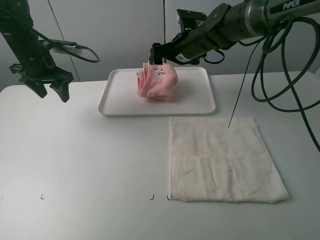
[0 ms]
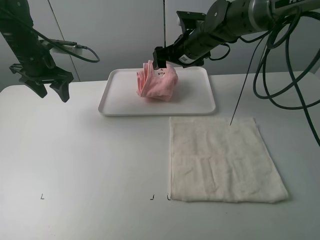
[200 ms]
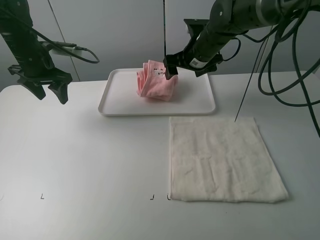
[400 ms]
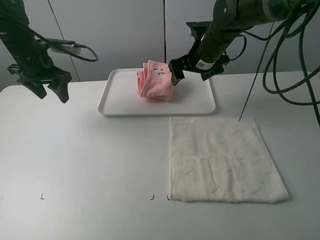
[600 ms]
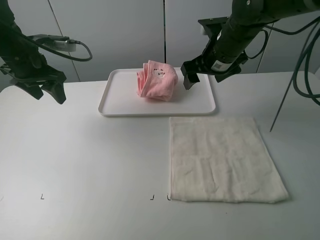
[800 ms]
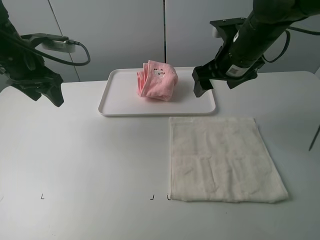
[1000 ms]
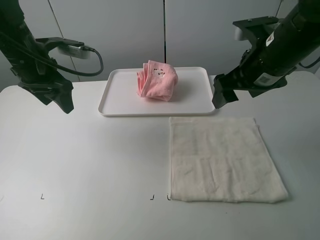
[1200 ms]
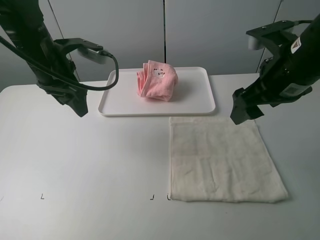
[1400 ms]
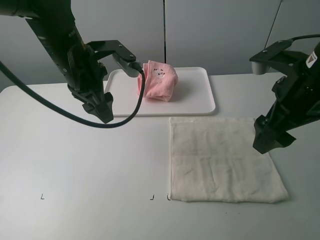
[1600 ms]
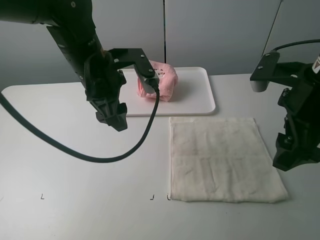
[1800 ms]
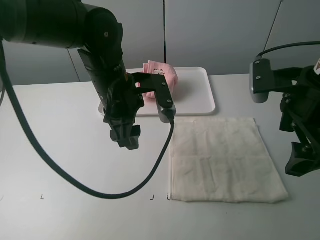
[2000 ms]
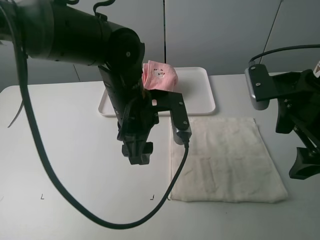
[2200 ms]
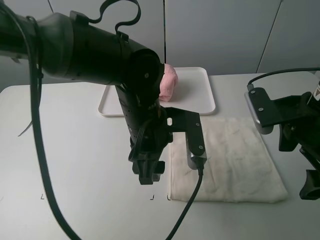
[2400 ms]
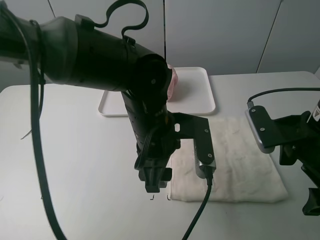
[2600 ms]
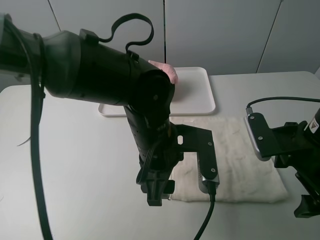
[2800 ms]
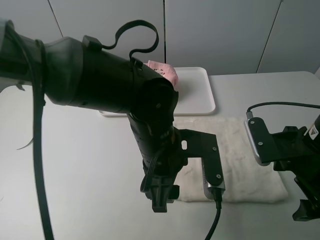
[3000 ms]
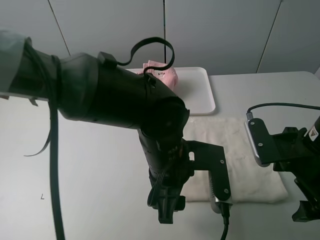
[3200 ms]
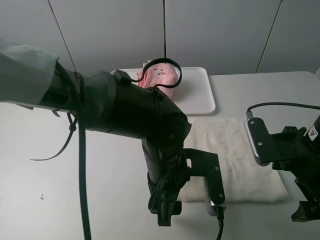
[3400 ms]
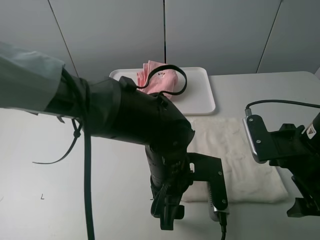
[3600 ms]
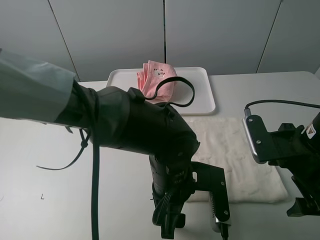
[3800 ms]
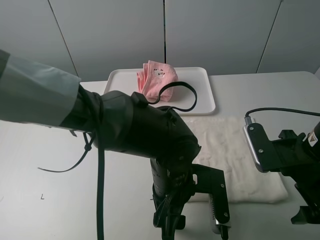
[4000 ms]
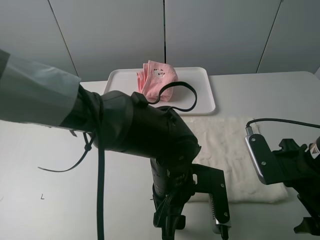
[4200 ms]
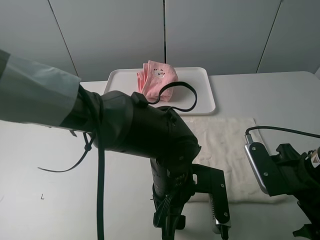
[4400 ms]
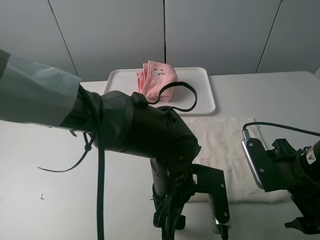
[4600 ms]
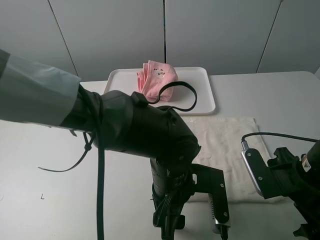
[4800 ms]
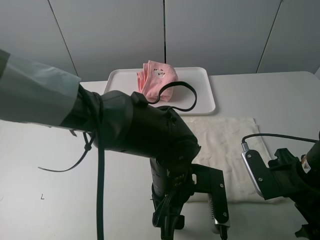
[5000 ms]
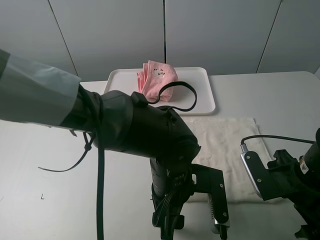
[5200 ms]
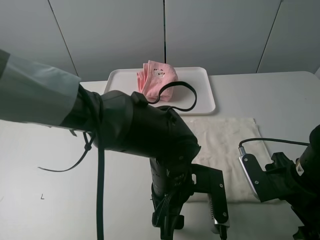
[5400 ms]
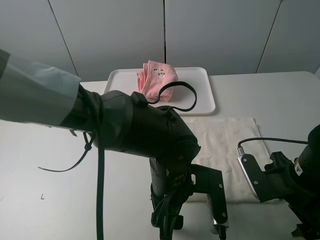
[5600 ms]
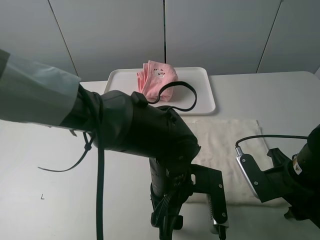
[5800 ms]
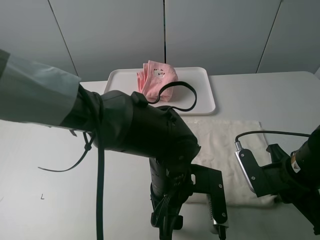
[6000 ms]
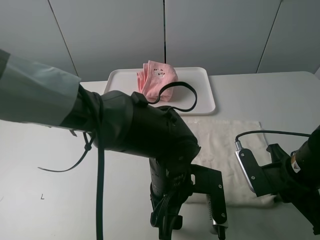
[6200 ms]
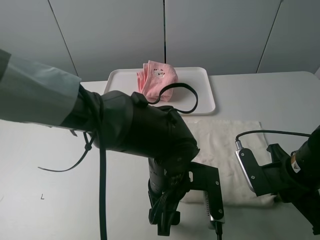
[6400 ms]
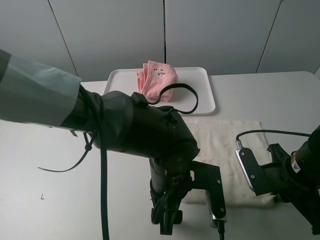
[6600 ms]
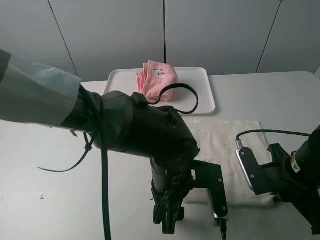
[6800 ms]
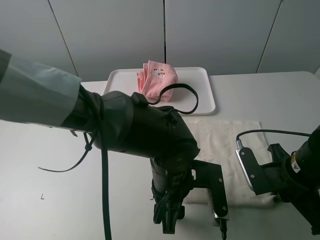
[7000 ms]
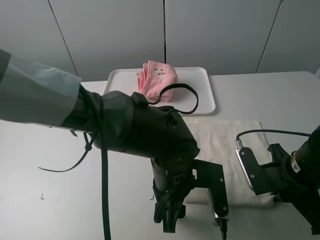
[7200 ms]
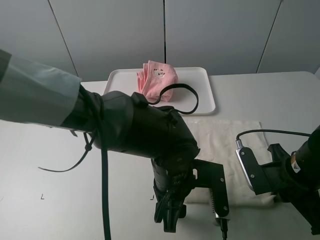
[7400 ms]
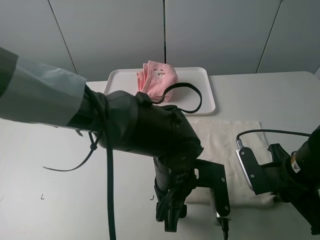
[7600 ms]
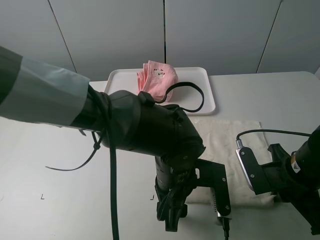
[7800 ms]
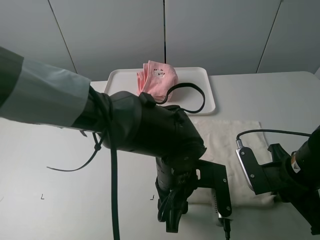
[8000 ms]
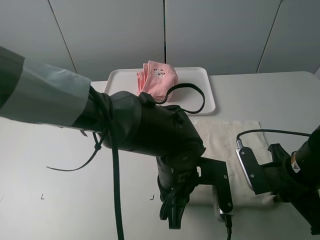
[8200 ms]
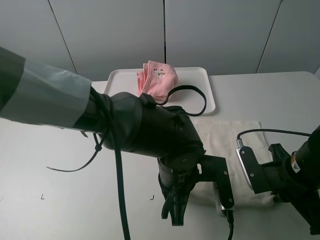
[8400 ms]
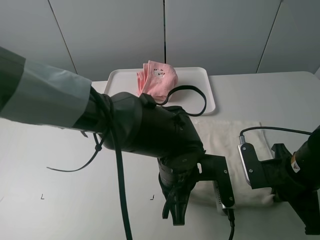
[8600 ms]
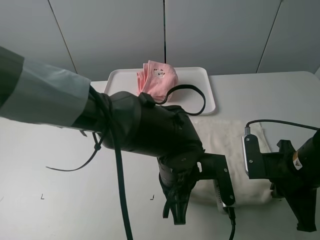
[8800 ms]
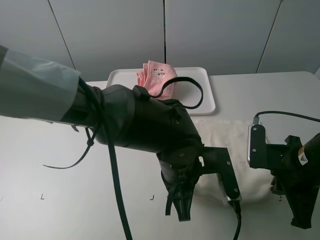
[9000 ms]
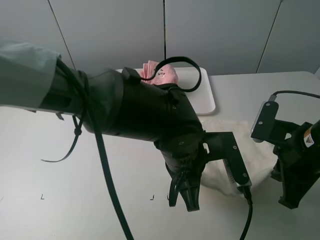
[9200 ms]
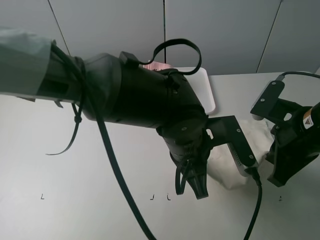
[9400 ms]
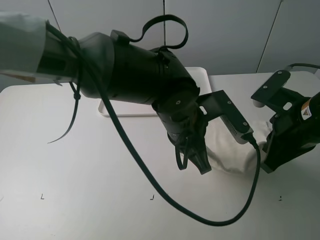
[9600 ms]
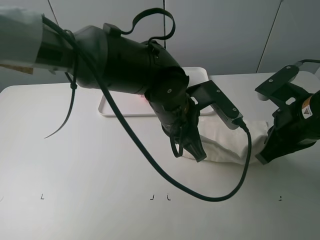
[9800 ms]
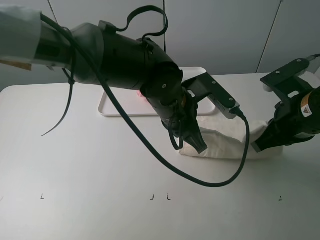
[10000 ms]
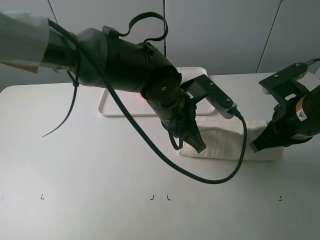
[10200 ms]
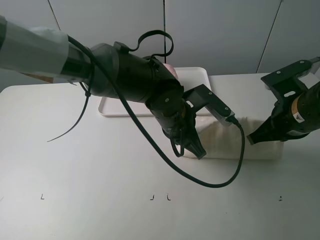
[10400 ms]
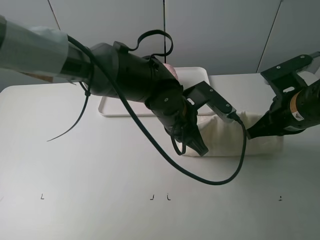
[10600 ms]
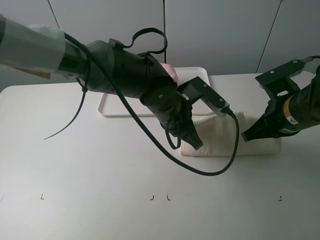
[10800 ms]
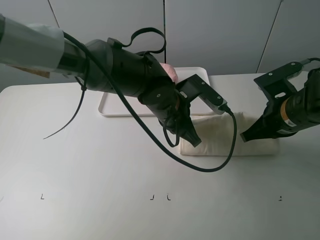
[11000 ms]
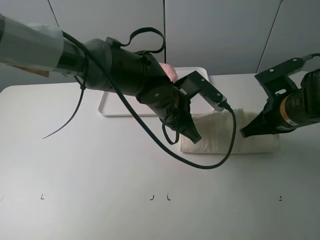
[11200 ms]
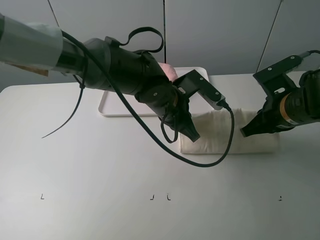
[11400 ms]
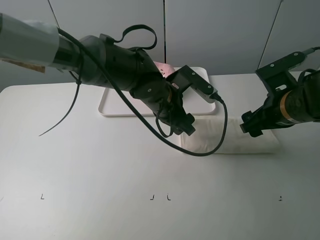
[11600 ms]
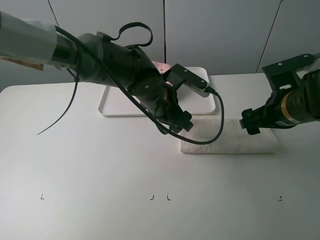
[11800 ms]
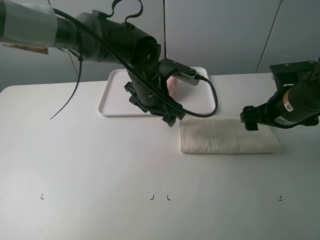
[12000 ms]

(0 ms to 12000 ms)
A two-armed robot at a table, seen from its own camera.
Task of the whole recording: fold one of the towels by two grippers and place it on the tray,then fold another towel by two grippers and place it on the folded towel.
Step, 0 ms - 8400 ms: Grasp the white towel with the left gripper.
Step, 8800 ms - 11800 ms: Fold the white towel upwards with the left gripper.
0 ms - 1600 ms: The left gripper goes roughly 20 cm to the right and backward. The right gripper heads backward and to the right, covering about 25 cm.
1600 ms - 3000 ms: The right gripper is displaced downward by roughly 10 cm. The left gripper shifts approximately 20 cm to the right, backward and downward.
3000 ms - 4400 ms: The left gripper shifts approximately 5 cm downward.
4400 ms - 6000 ms: The right gripper closes its fingers.
6000 ms - 7600 ms: The grippers stay close to where they were, moving slightly.
7600 ms - 9000 ms: The left gripper closes up.
9000 ms - 10400 ms: The two grippers go about 5 cm forward.
10400 ms - 12000 ms: The right gripper opens up. Meanwhile the left gripper shifts roughly 10 cm forward, and opens up.

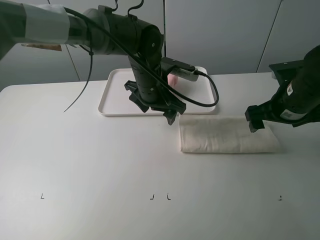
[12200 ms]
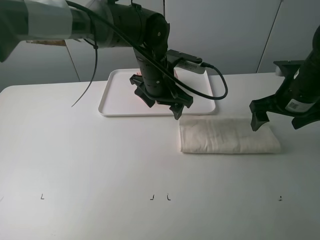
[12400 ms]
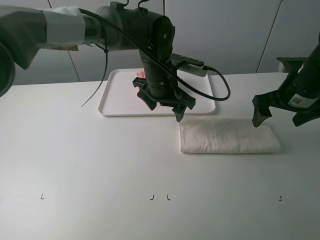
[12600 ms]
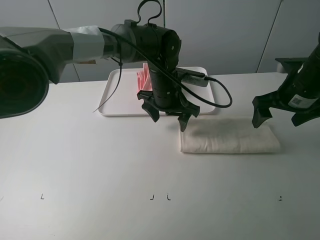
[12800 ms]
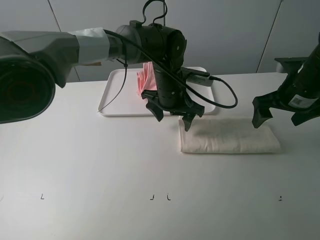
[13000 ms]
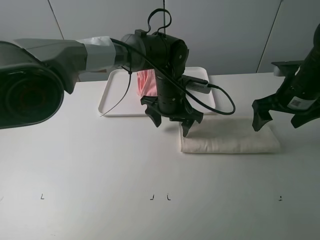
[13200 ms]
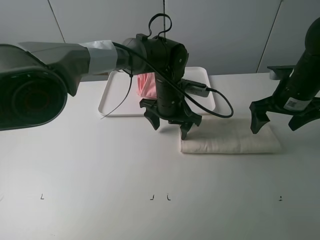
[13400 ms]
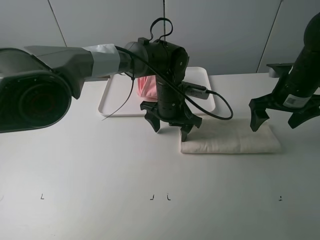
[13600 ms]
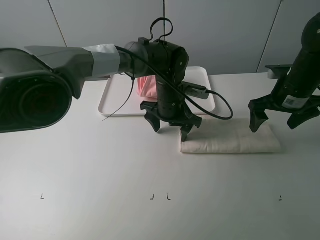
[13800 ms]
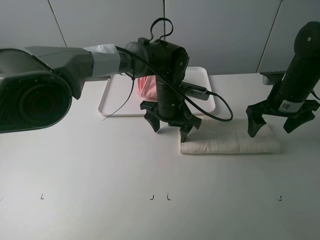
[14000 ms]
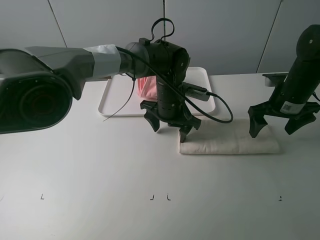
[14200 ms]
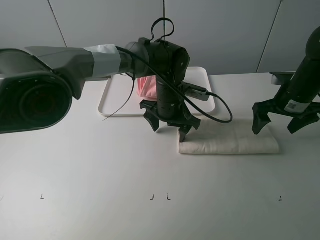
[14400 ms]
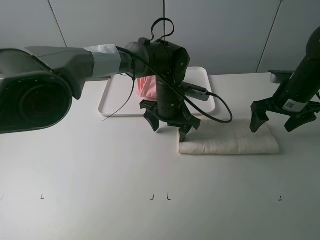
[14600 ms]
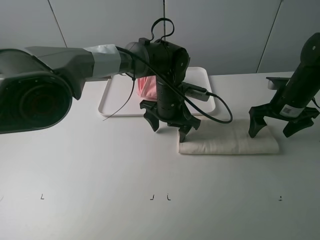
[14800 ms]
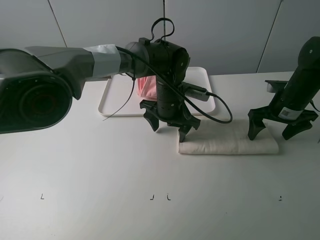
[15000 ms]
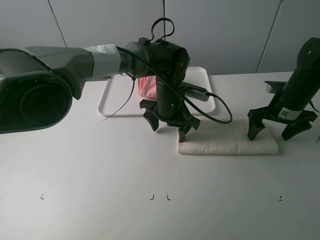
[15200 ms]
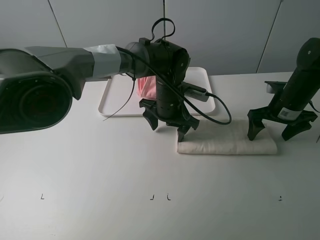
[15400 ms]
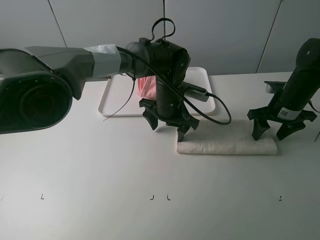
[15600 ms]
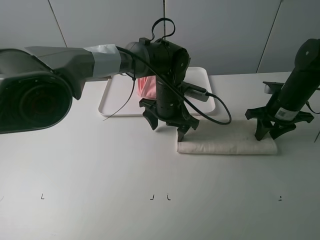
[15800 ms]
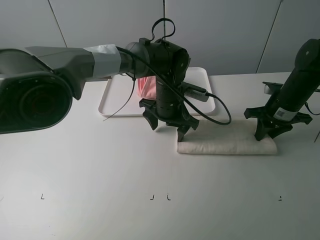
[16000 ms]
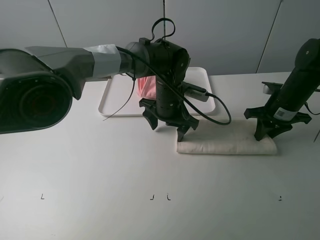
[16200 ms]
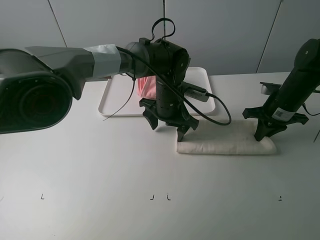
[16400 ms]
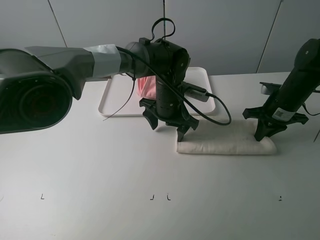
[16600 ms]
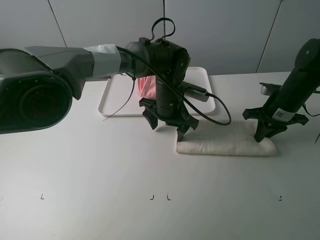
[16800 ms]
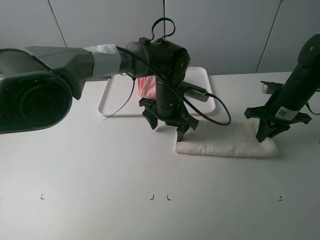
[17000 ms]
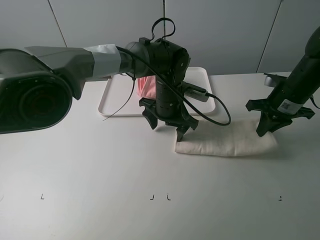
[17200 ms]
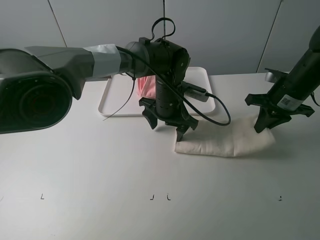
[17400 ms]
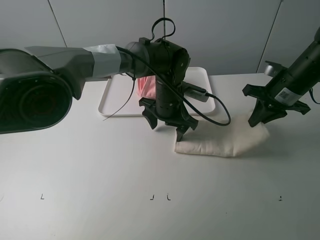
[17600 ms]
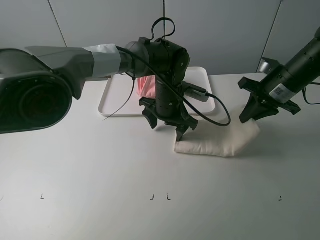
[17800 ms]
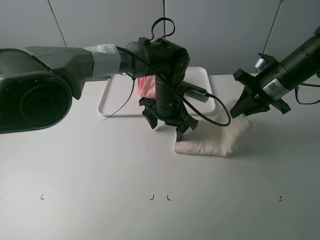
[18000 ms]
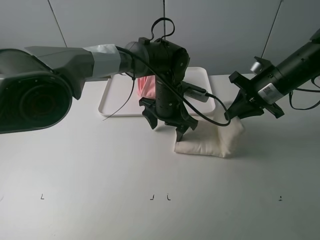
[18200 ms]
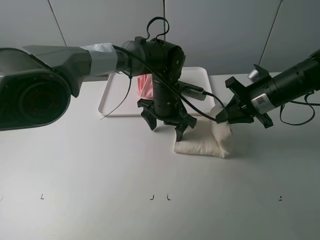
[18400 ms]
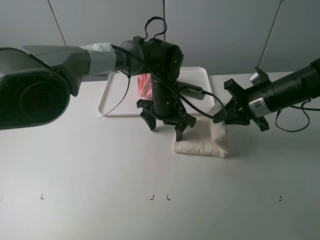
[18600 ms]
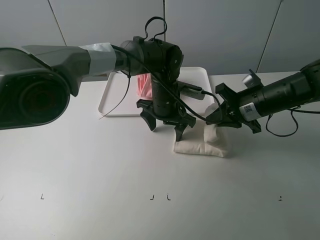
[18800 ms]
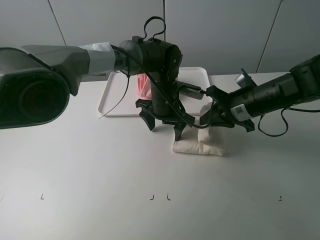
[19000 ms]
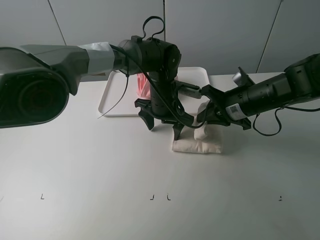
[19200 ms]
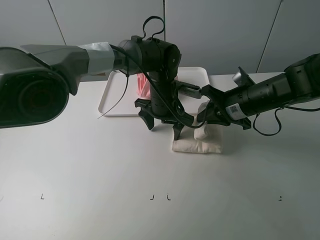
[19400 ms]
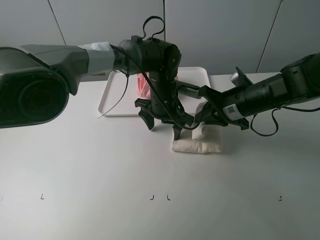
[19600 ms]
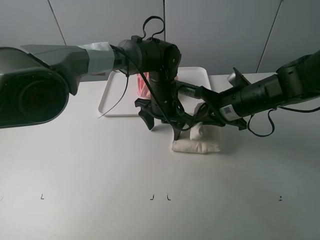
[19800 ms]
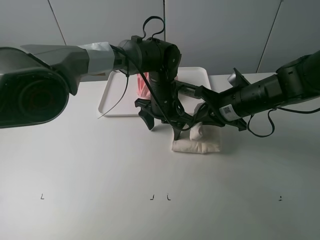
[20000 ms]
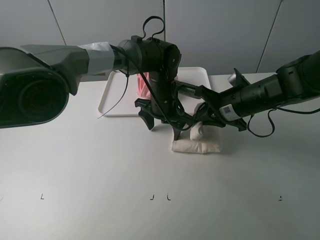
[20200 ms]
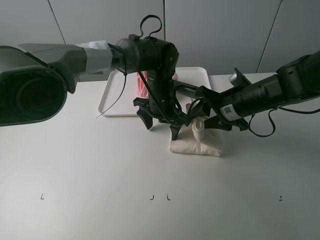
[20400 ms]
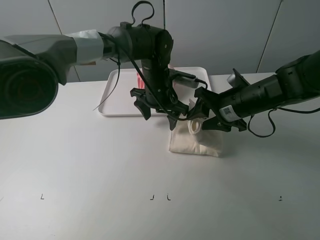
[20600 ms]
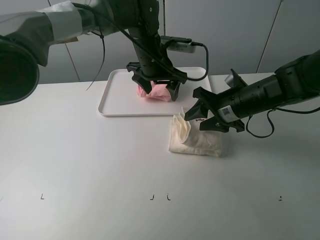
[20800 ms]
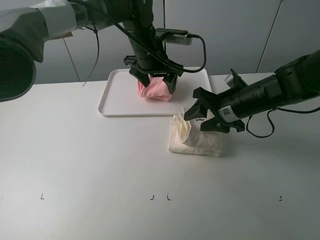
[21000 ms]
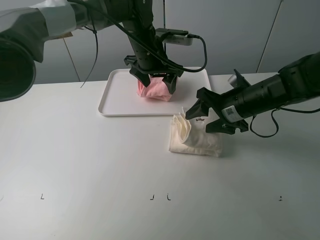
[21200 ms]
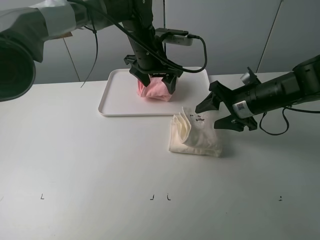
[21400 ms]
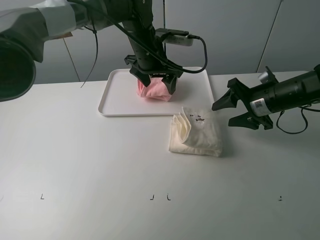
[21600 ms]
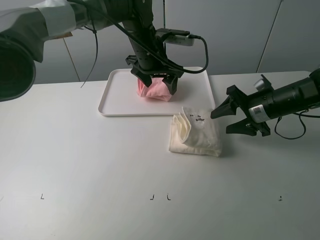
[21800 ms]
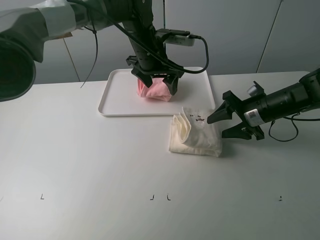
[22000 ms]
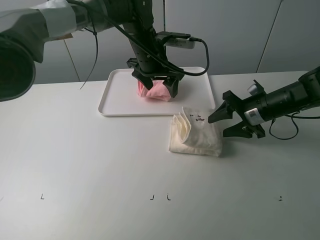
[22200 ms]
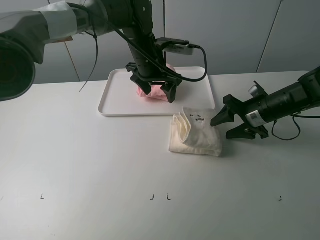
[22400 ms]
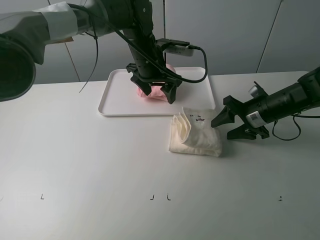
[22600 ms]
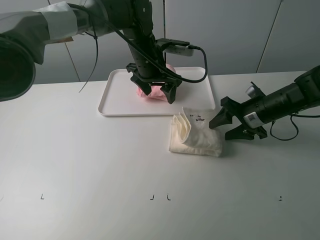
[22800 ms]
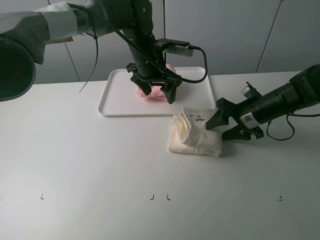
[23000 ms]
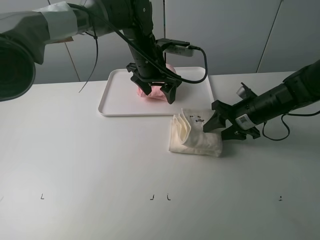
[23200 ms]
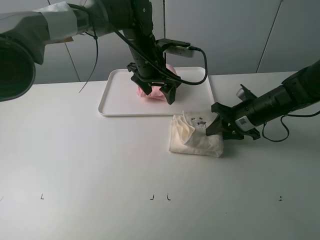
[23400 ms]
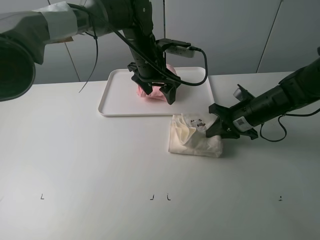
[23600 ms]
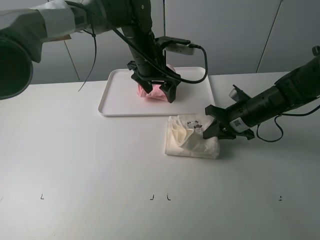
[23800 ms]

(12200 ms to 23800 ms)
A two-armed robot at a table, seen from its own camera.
Task of the whole recording: fold one of the towels by two grippers and place it on the tray,then fold another towel by two grippers and place it on the folded towel.
Step, 12200 ms - 14000 ms: Press the white towel with the left gripper.
Step, 14200 ms - 16200 ms: Grasp the white towel with the right gripper.
Step, 16400 ms - 20800 ms: Fold the white towel from right to left with right gripper.
Step, 21000 ms - 23400 ms: Grasp the white towel with the right gripper.
12200 ms - 13600 ms: The left gripper goes approximately 5 cm downward.
13600 ms - 15000 ms: The right gripper moves downward, about 5 cm.
15000 ms - 16600 ms: The right gripper closes up.
16600 ms - 18000 ms: The right gripper moves upward, roughly 10 cm.
18000 ms - 19400 ms: The right gripper heads to the left, covering about 5 cm.
19400 ms - 21000 ms: The left gripper travels upward by roughly 10 cm; the right gripper opens its fingers.
21000 ms - 22400 ms: The right gripper moves to the right, some 10 cm.
22400 ms - 23800 ms: The right gripper closes its fingers.
